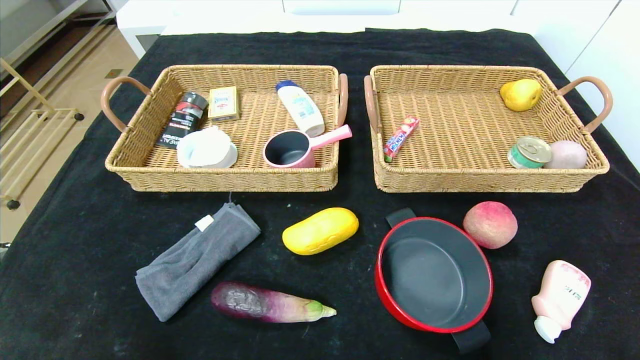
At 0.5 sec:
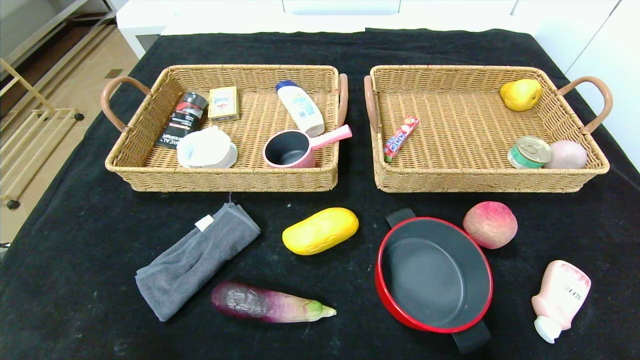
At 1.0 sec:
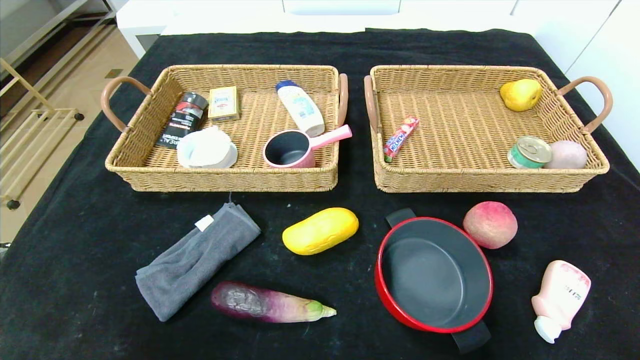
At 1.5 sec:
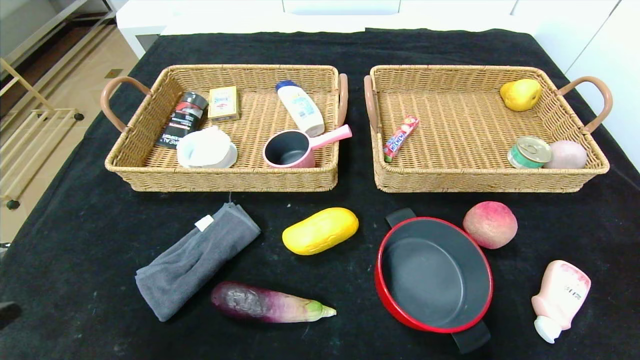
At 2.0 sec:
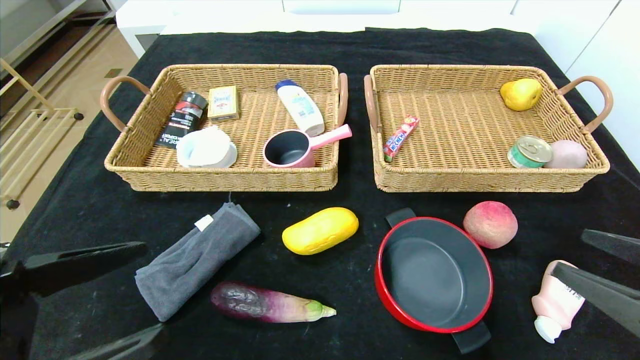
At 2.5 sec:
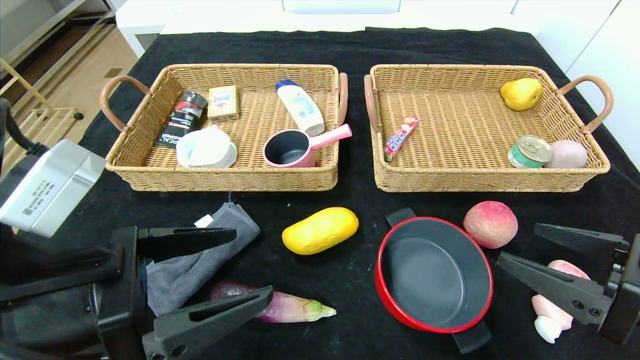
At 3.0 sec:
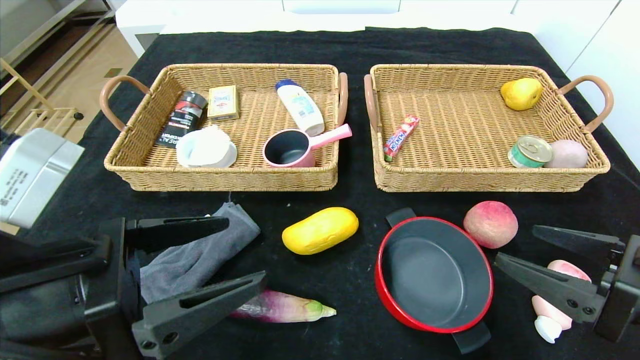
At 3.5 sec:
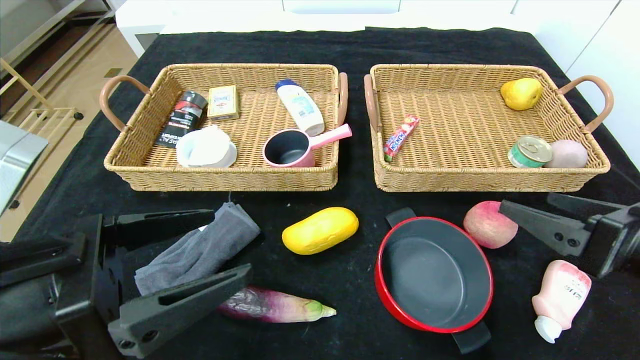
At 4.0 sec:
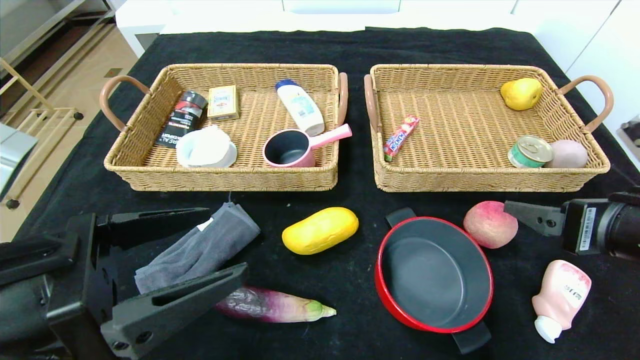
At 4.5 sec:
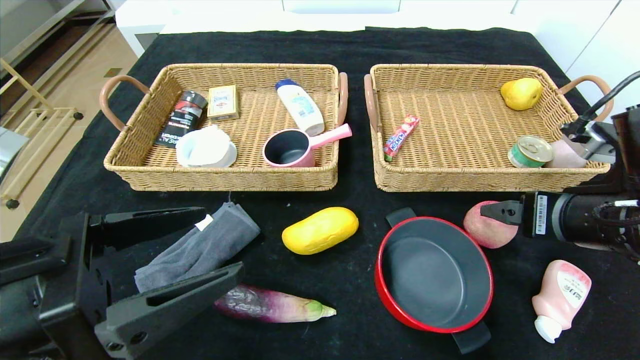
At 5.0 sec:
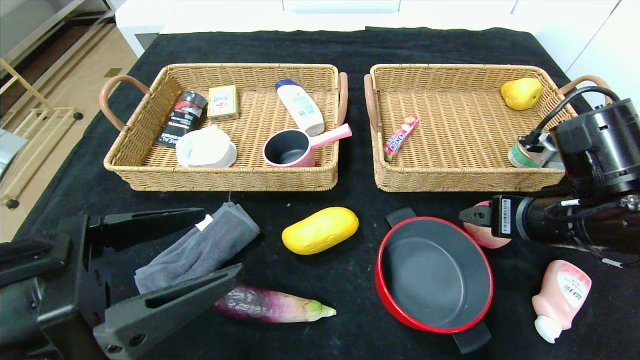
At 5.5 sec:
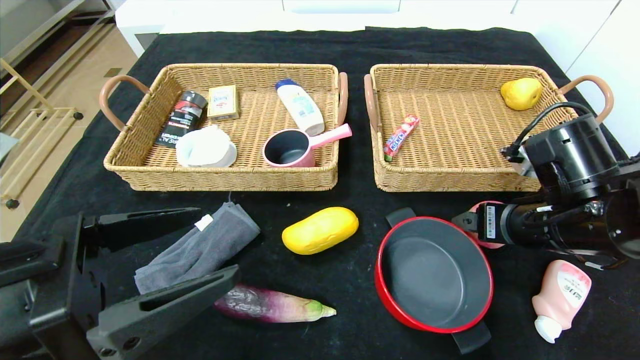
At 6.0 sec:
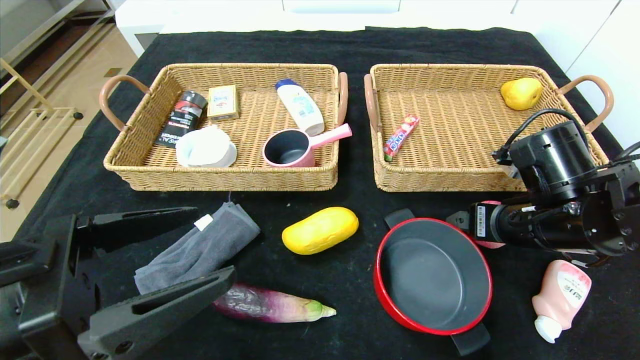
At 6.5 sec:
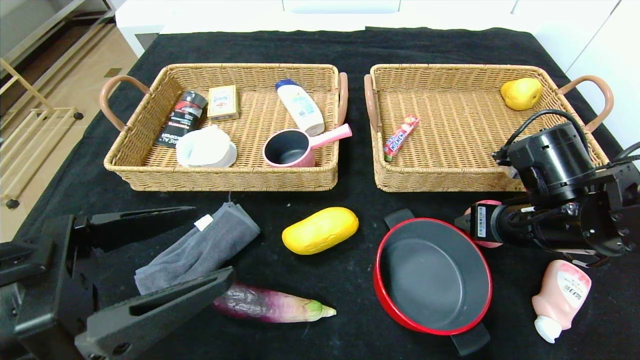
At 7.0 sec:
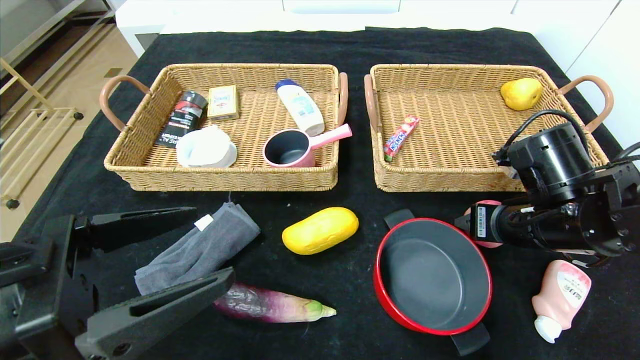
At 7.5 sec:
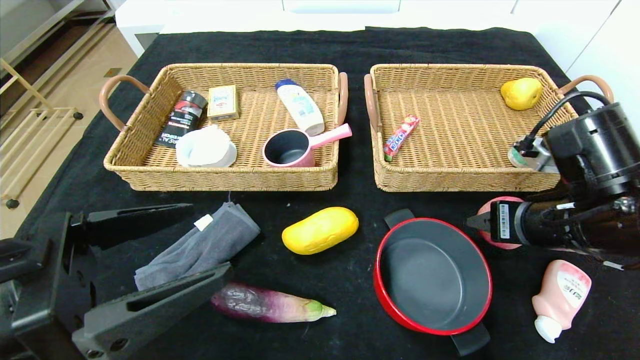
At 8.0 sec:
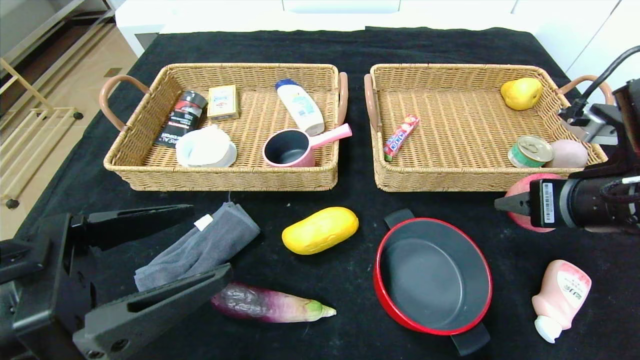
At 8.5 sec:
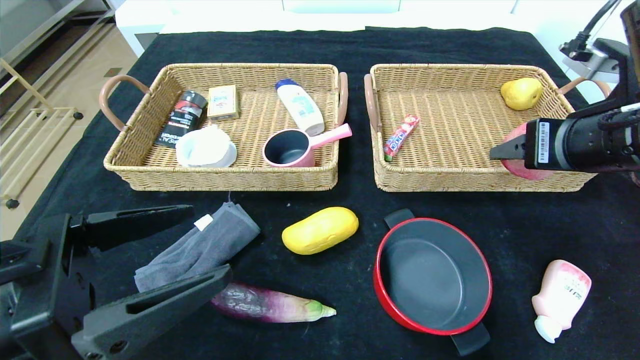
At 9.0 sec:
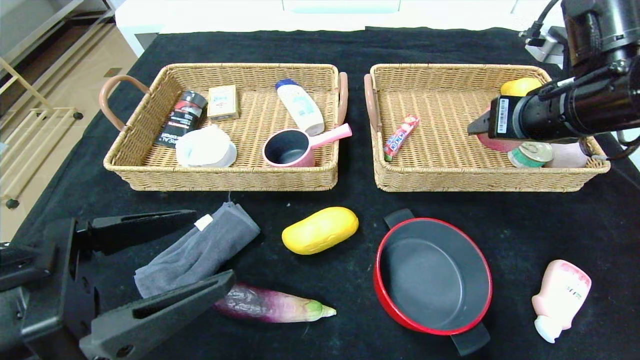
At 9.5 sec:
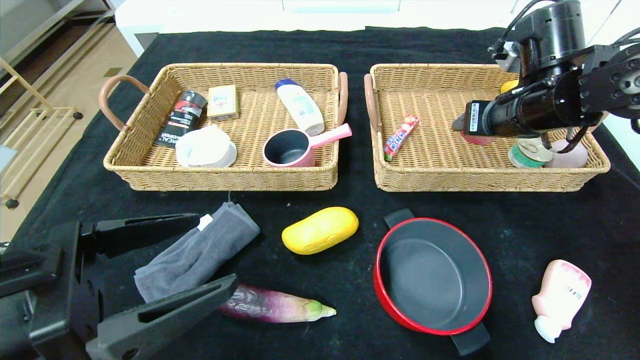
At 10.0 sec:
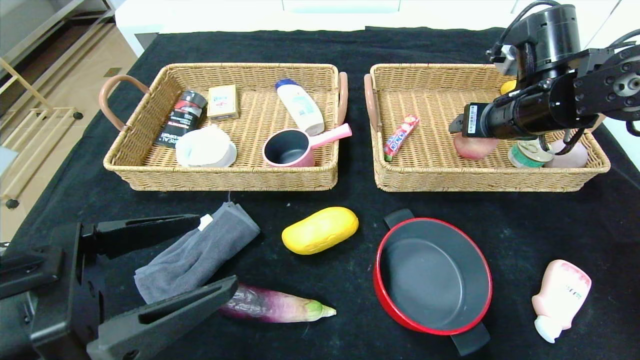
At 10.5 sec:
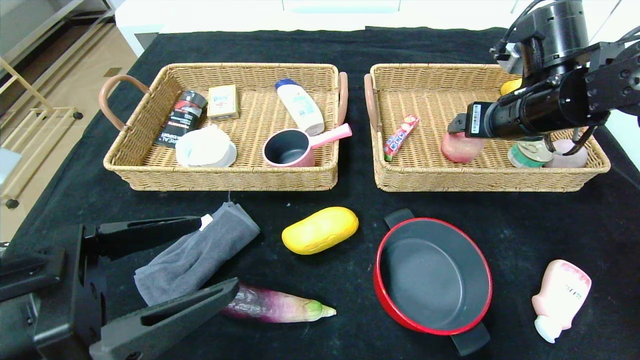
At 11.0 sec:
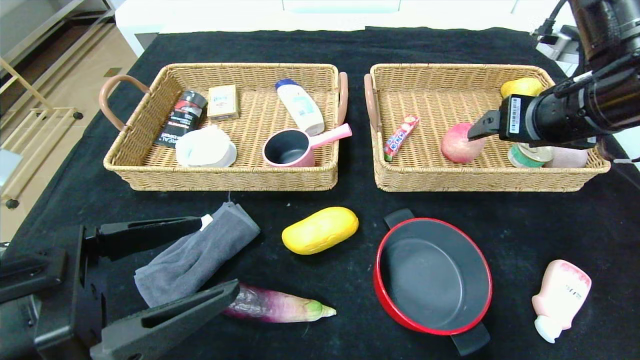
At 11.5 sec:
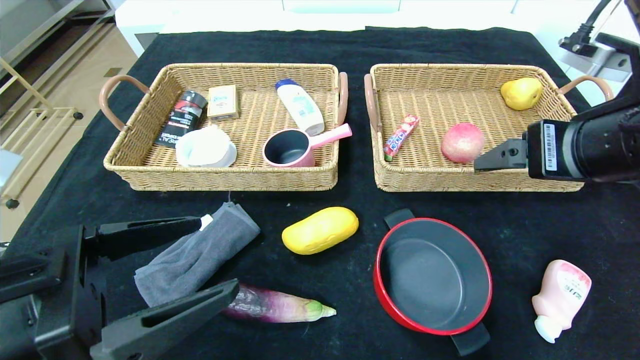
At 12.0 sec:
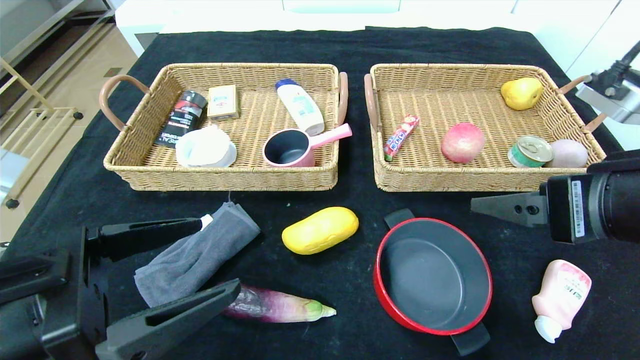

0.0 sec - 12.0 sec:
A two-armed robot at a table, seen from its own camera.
Step, 0.0 sec - 10.0 sec: Grasp the peach and put it in the right basket.
0.0 sec - 2.0 sec: The right gripper moves forward and upward, about 20 cm. The left gripper heads upward and forward, covering roughly 20 cm.
2.0 sec - 4.0 sec: The left gripper changes place by approximately 5 cm, while the right gripper is displaced forward by roughly 5 cm.
4.0 sec - 6.0 sec: The right gripper heads forward, covering approximately 10 cm.
6.0 sec - 8.0 sec: The right gripper shifts roughly 10 cm upward and backward, and closes up.
8.0 sec - 10.0 sec: The right gripper moves forward, approximately 15 cm.
10.0 sec - 12.0 sec: The right gripper heads backward, covering roughly 20 cm.

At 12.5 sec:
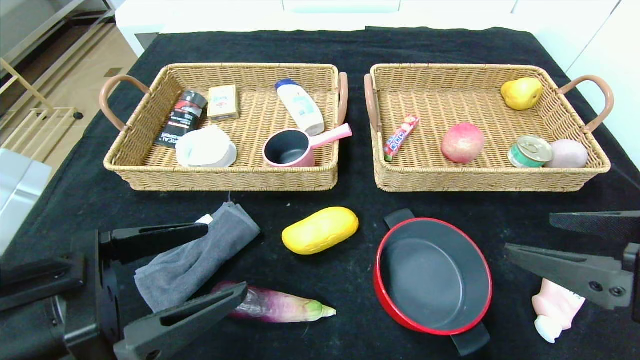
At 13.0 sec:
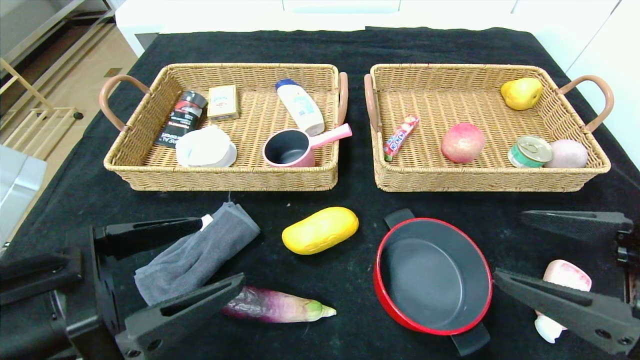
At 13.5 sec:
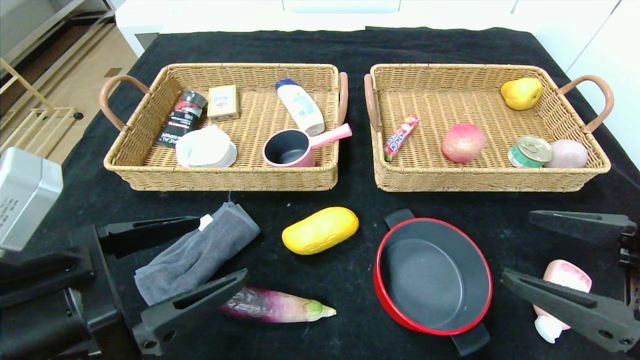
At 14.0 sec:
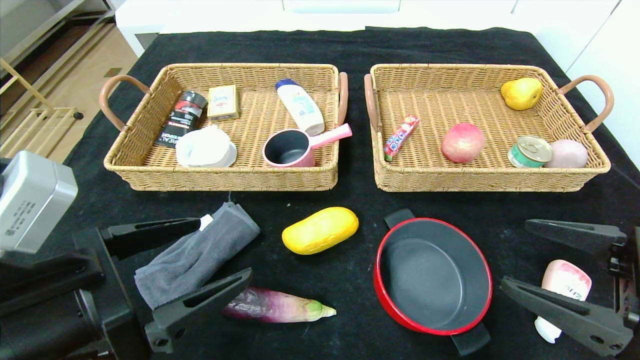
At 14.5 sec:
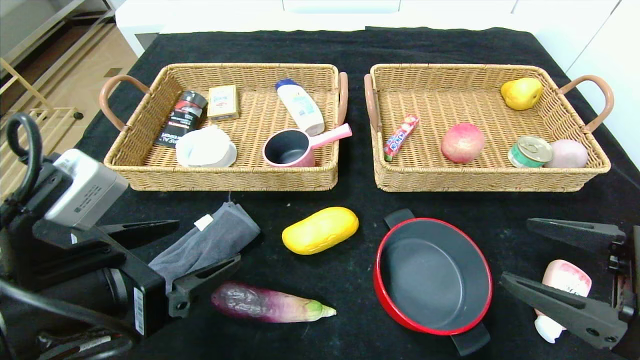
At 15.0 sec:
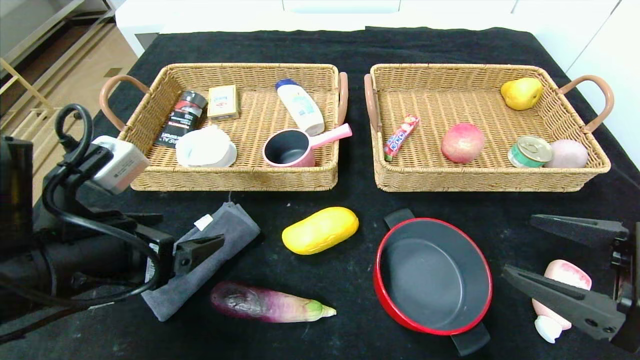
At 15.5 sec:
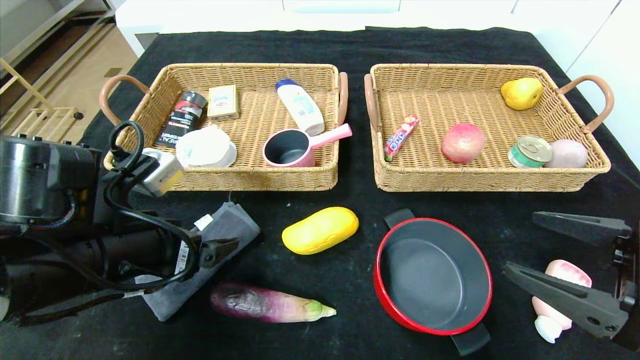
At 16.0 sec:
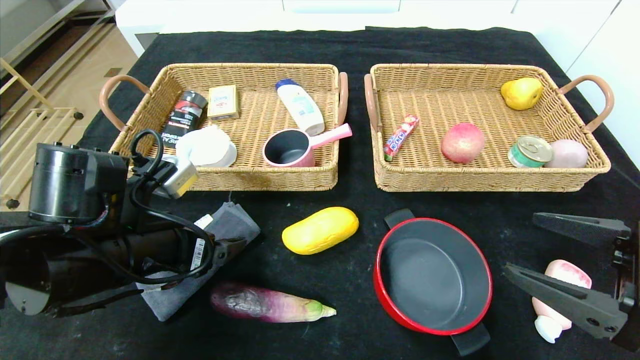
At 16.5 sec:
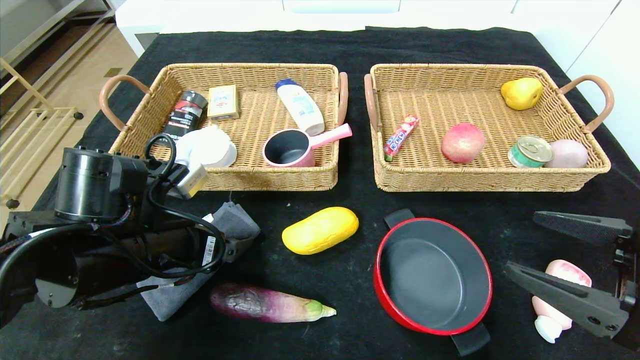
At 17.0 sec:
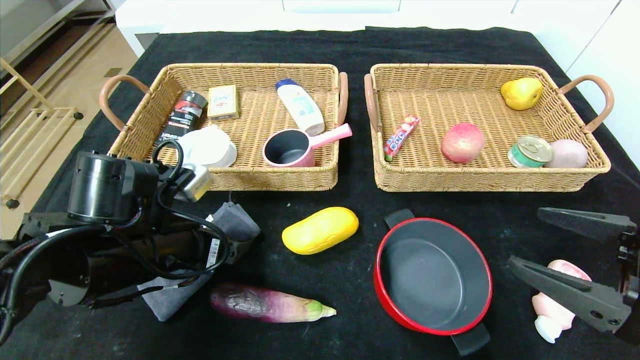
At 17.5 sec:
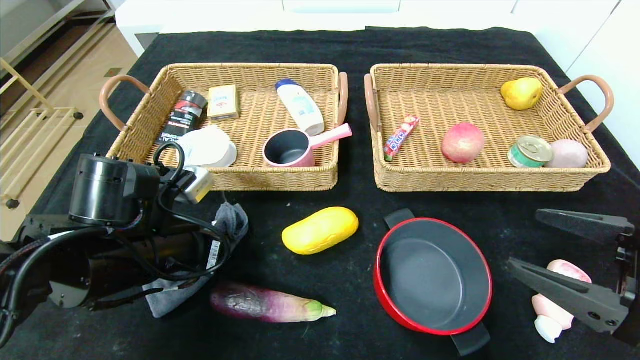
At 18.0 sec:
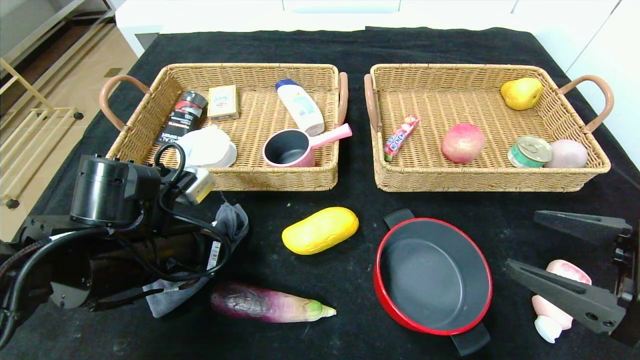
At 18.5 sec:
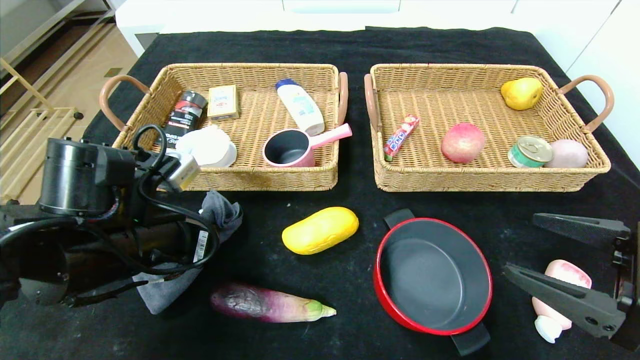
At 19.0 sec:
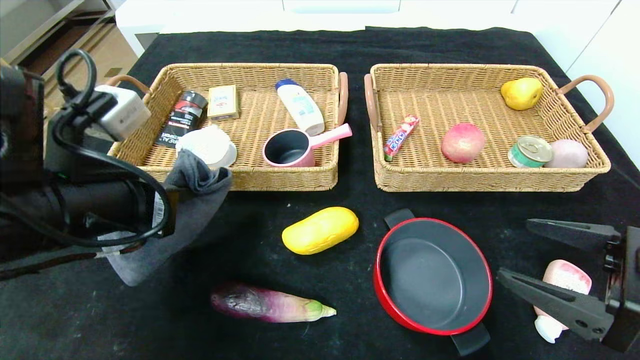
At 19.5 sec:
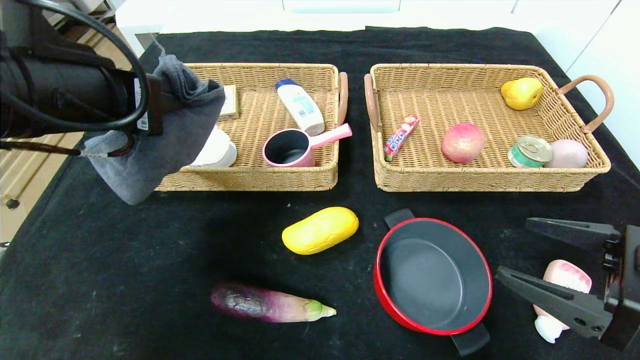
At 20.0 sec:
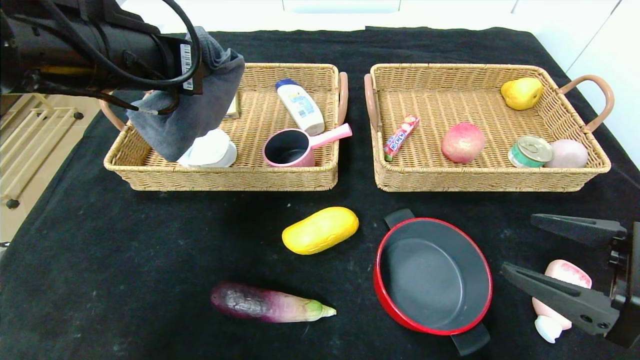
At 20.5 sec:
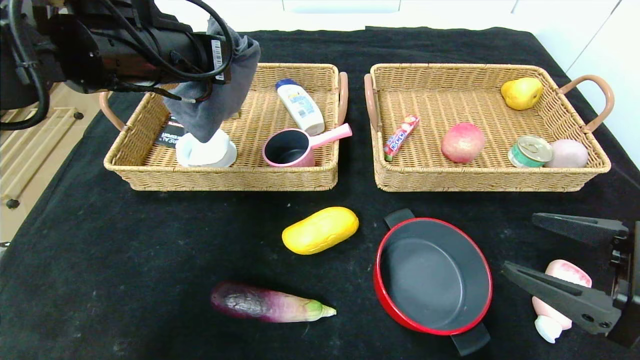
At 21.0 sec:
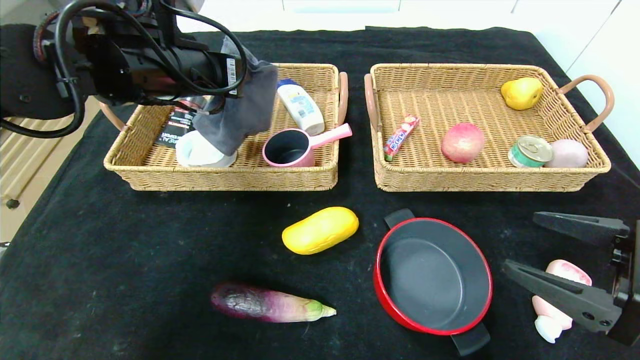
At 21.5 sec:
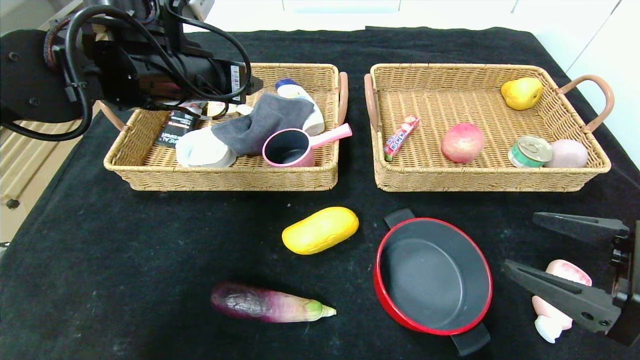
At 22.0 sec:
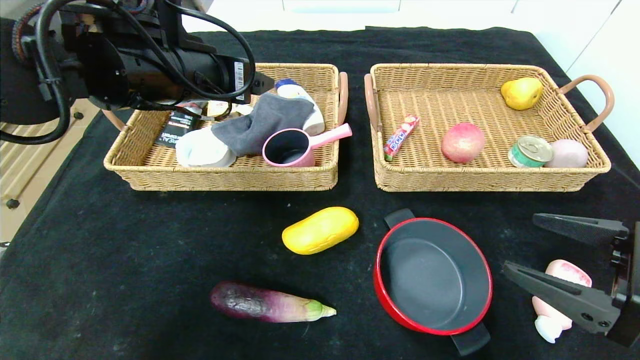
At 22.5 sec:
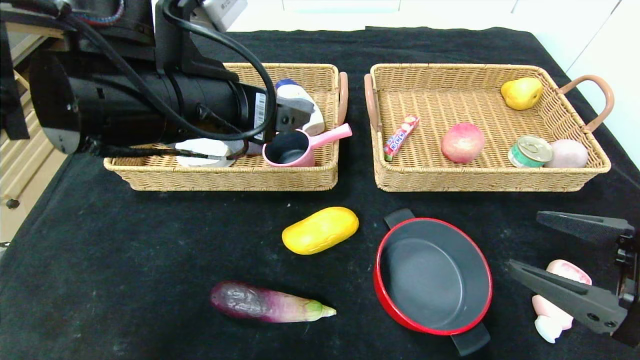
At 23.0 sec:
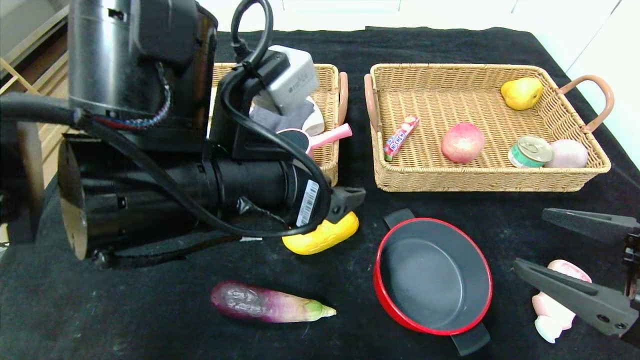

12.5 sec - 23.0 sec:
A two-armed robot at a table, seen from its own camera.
Step, 12.5 sec - 21.5 sec: Grasp the gray towel and put it in the left basket.
12.5 sec - 14.5 sec: The right gripper goes some 5 cm downward.
14.5 sec - 16.5 sec: The left gripper shifts about 10 cm forward.
16.5 sec - 19.0 sec: The left gripper moves upward, approximately 5 cm, and closes its fingers.
19.0 sec - 21.0 sec: The left gripper goes roughly 15 cm forward and upward, and opens up.
21.0 sec - 23.0 sec: The left gripper is displaced backward, to the right and downward by approximately 15 cm, and opens up.
